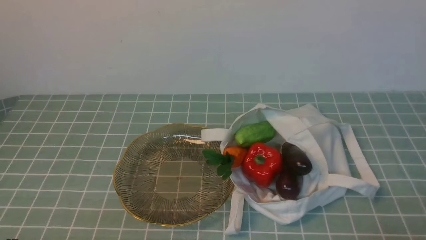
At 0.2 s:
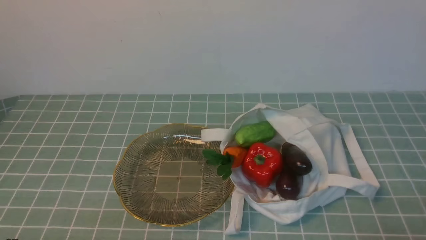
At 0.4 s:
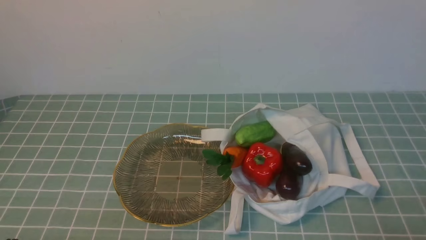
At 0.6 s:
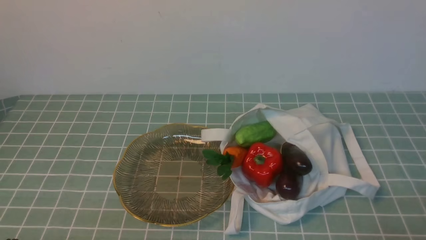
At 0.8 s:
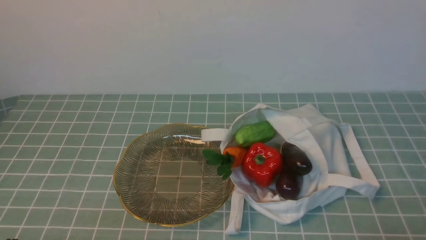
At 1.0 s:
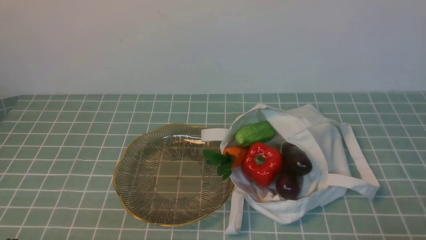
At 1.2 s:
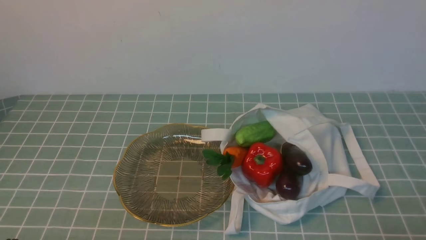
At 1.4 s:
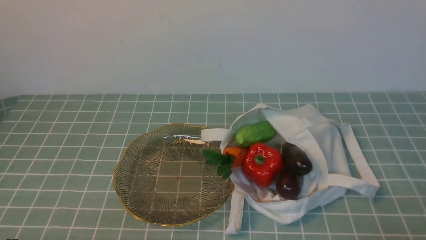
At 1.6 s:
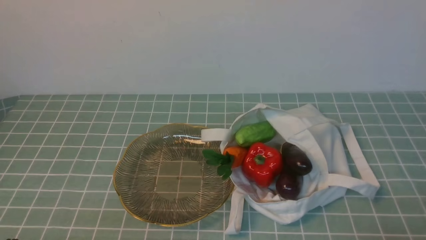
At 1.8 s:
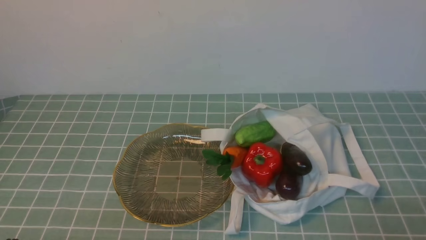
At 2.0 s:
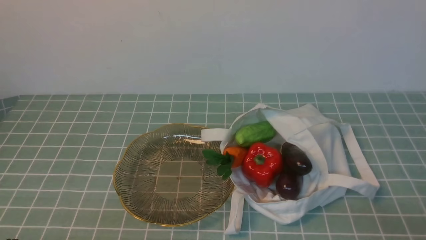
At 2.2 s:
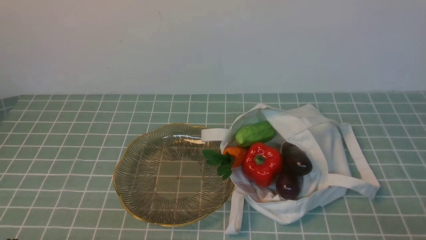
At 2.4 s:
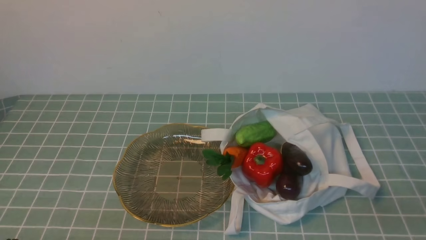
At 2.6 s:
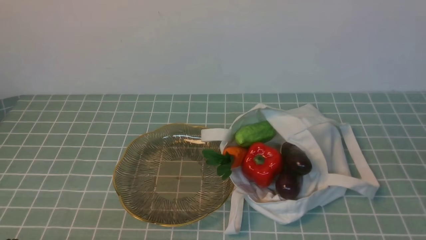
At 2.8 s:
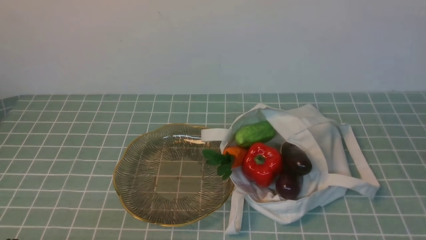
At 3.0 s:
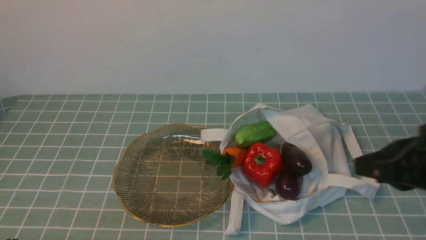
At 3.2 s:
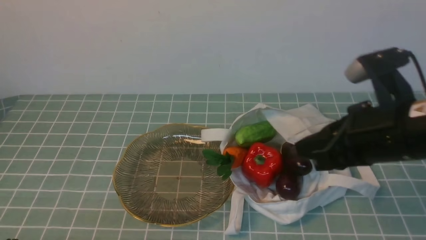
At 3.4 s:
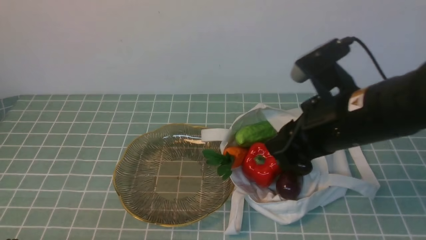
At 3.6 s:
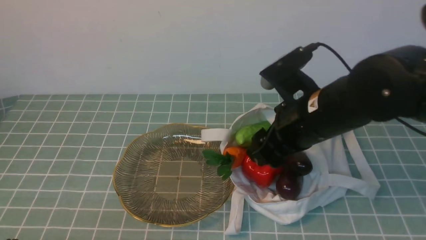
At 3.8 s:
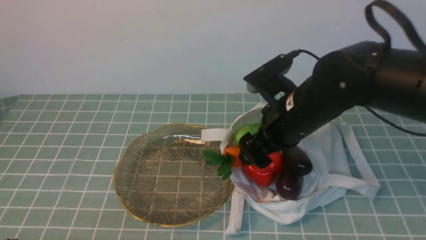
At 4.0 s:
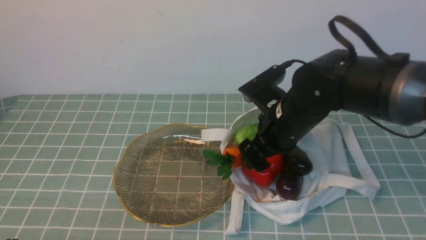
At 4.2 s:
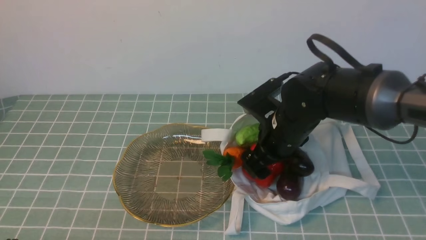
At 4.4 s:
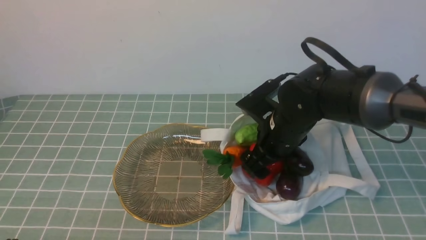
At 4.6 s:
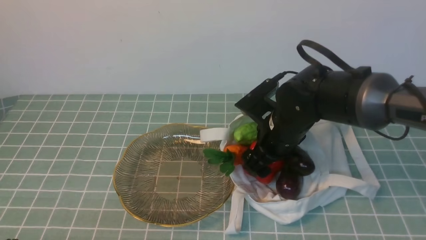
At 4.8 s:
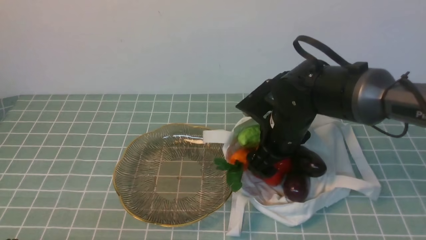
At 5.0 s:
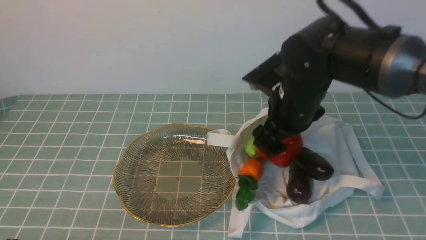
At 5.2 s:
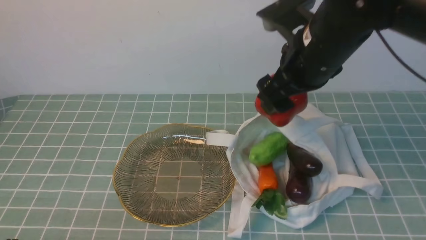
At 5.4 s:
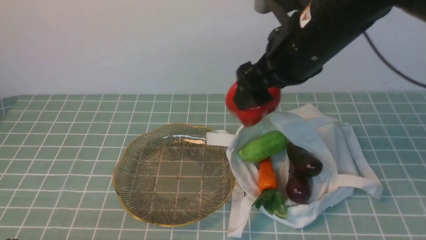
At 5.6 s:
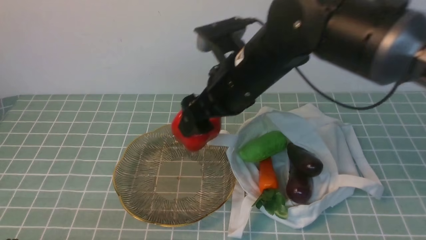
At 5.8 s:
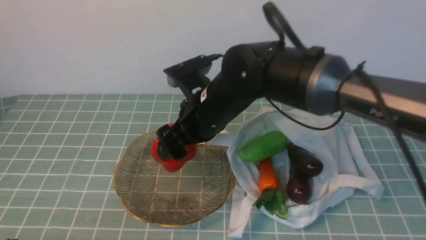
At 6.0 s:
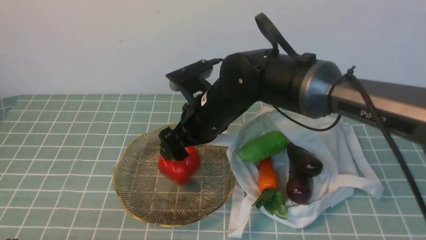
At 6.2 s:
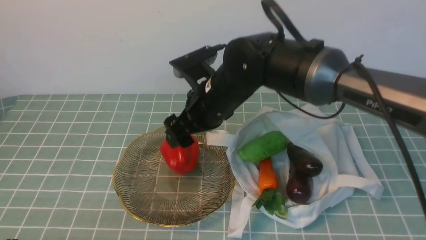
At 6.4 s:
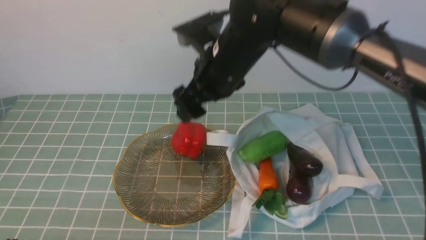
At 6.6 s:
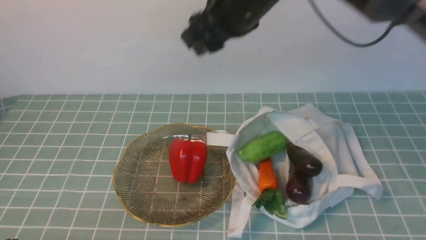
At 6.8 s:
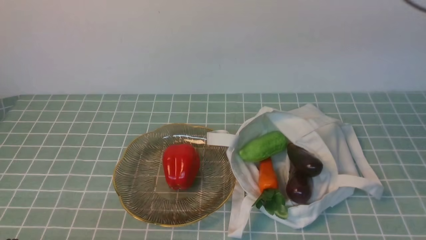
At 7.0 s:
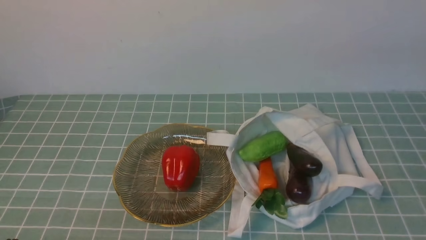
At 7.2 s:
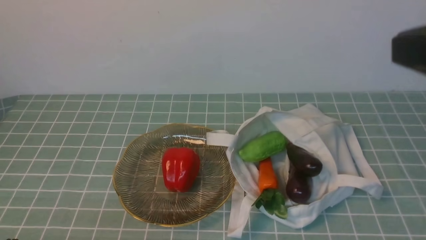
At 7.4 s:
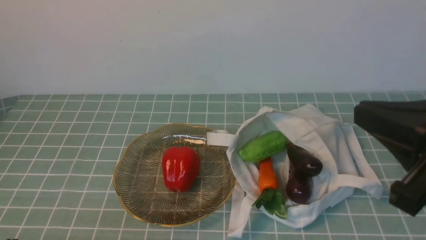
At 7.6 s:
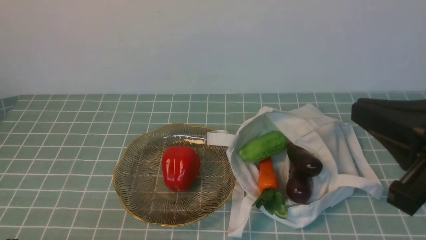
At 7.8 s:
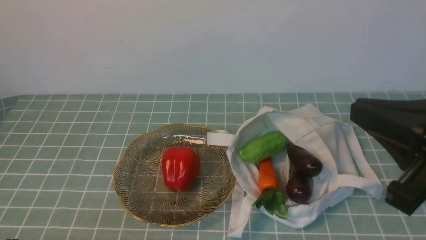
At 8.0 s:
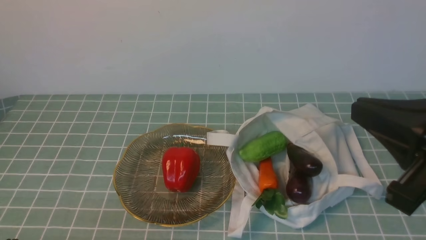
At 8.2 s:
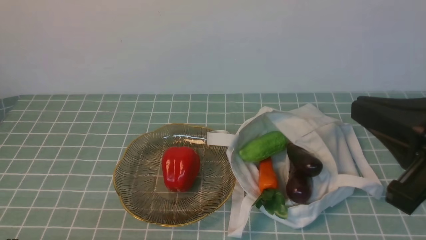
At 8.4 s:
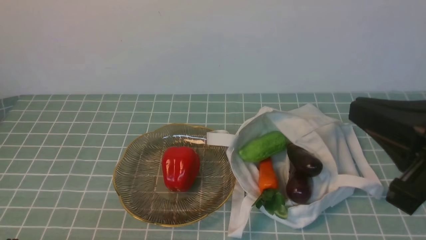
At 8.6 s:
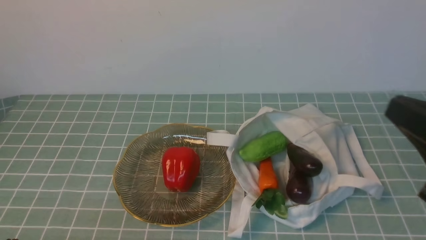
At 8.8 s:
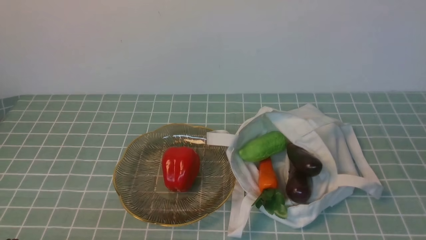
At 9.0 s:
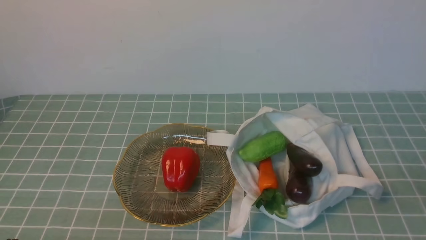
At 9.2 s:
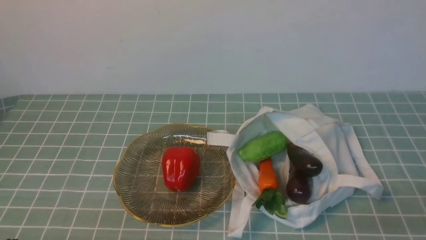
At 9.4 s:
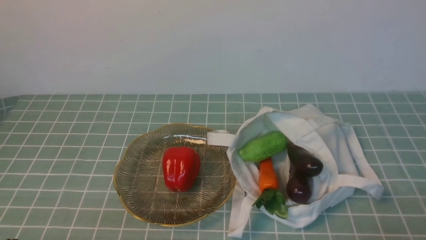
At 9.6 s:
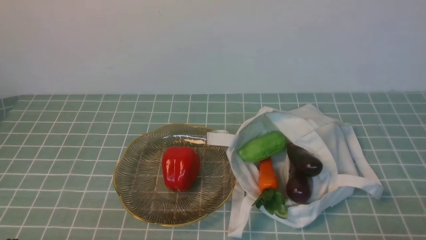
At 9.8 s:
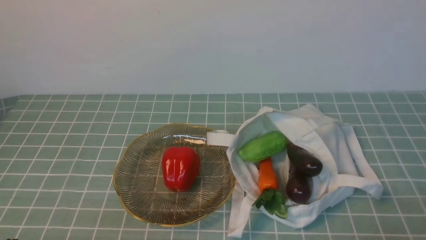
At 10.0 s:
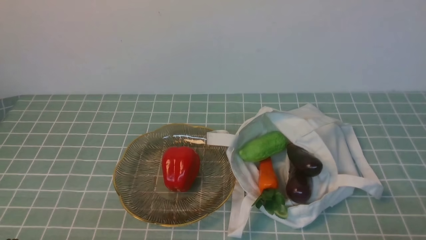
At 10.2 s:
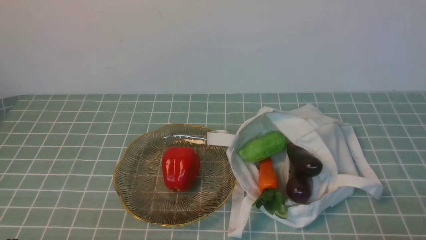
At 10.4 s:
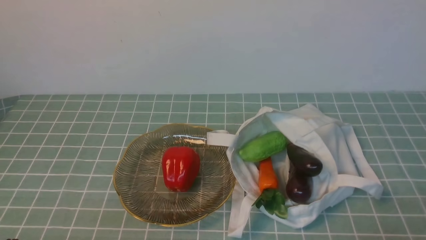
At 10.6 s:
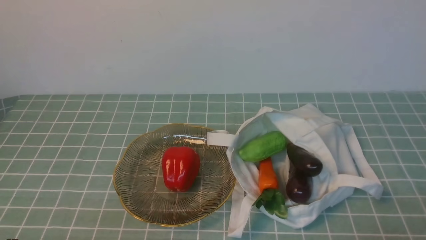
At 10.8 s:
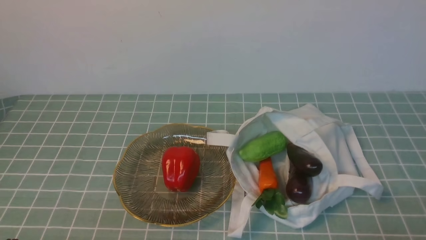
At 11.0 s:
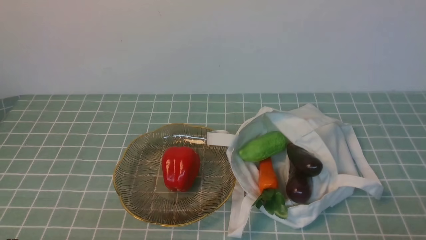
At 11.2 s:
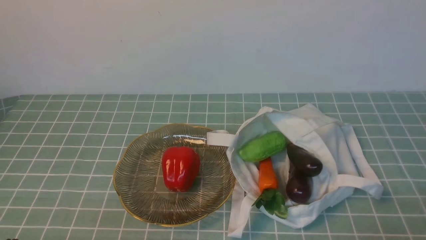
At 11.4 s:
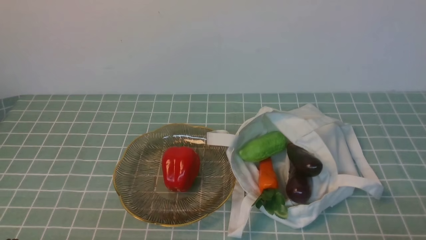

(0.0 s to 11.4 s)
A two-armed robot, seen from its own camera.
Task of the whole recording: take vegetables from cloth bag on blue coffee tablecloth place on plate.
Step, 0.0 s - 4.2 s: Grasp the bell pepper with right gripper.
Step, 4.4 s - 6.4 s: Place the bell pepper on the plate with right gripper.
0.0 s - 1.4 s: The two grippers keep their place.
2.8 s - 4.2 s: The right gripper shifts some 30 cm forward, to the left and downward, and opens up.
4.2 s - 5.6 s: The right gripper is displaced upward and to the left by some 10 cm.
5.6 s - 7.2 s: The right gripper swings up and down, roughly 25 cm each way, with 2 reversals, and closes up.
7.2 s - 8.6 s: The right gripper is displaced downward by about 10 cm.
8.6 s - 10.0 s: The right gripper heads downward, covering about 15 cm.
10.0 s - 11.4 s: The two grippers keep their place.

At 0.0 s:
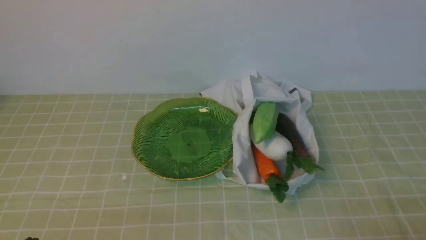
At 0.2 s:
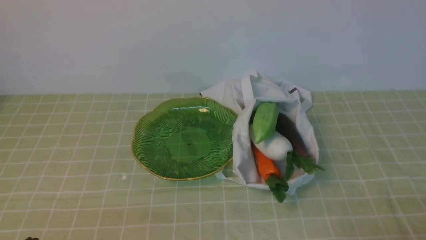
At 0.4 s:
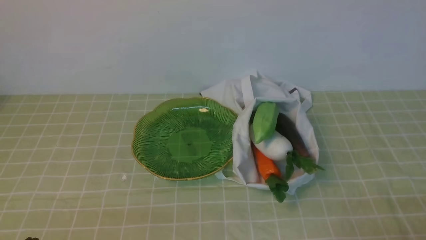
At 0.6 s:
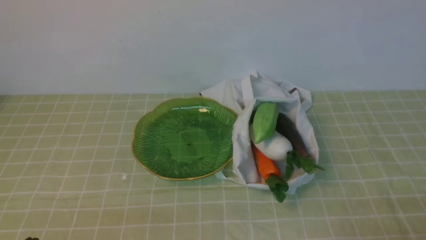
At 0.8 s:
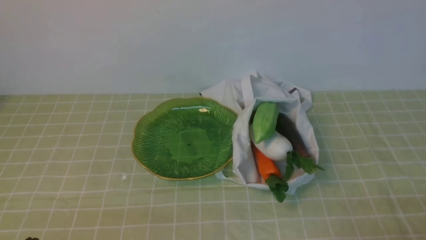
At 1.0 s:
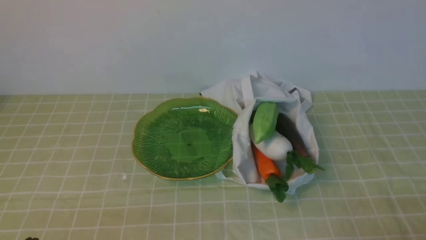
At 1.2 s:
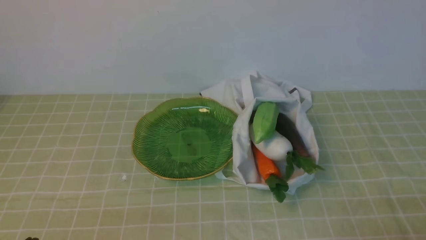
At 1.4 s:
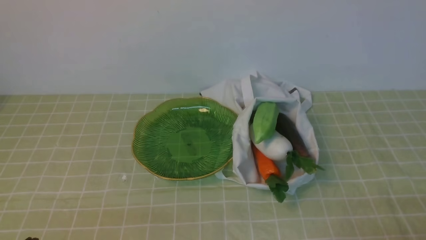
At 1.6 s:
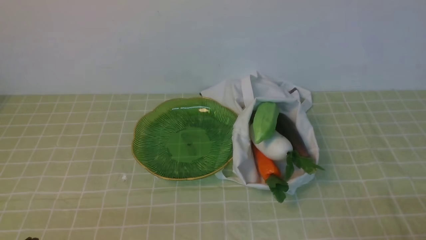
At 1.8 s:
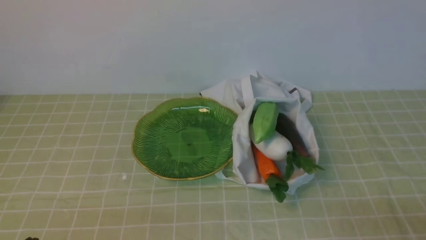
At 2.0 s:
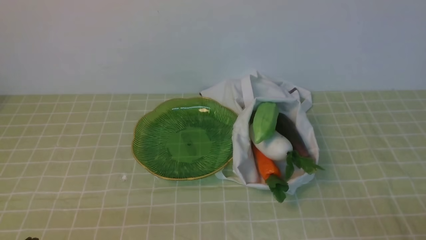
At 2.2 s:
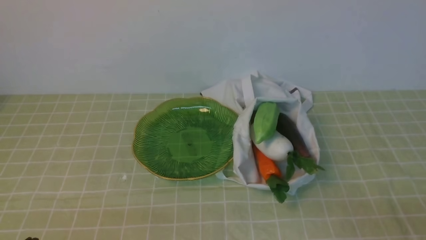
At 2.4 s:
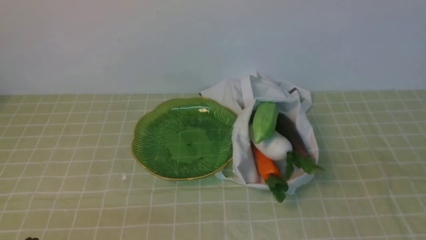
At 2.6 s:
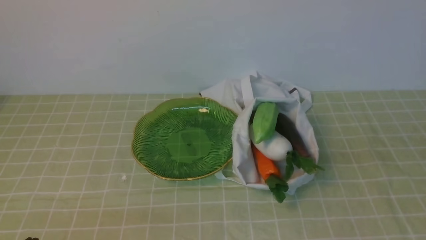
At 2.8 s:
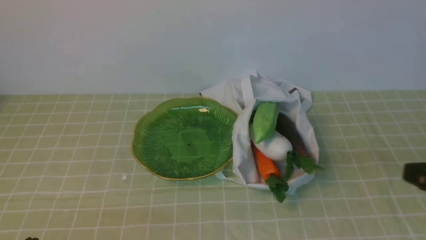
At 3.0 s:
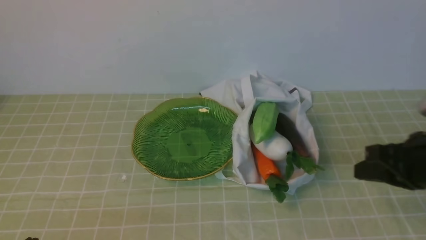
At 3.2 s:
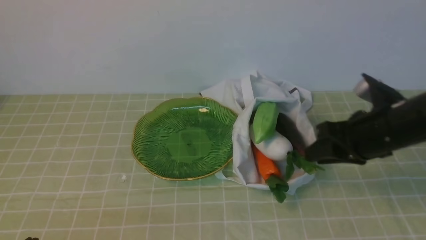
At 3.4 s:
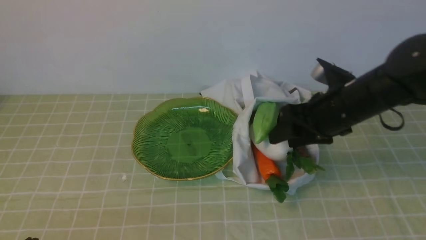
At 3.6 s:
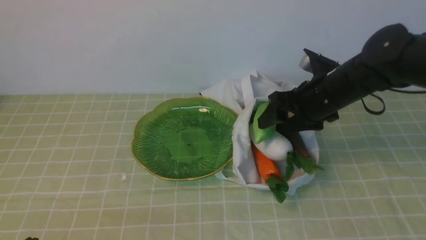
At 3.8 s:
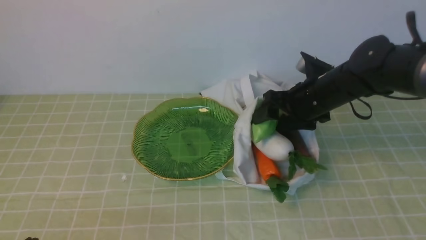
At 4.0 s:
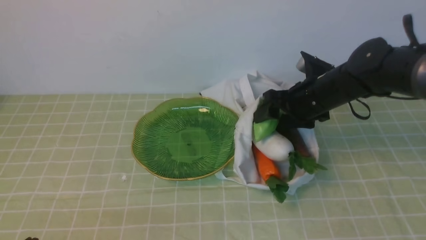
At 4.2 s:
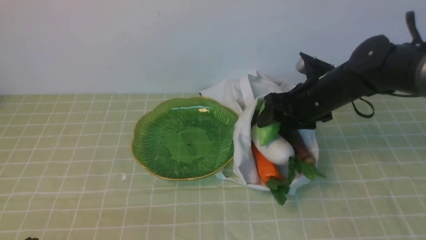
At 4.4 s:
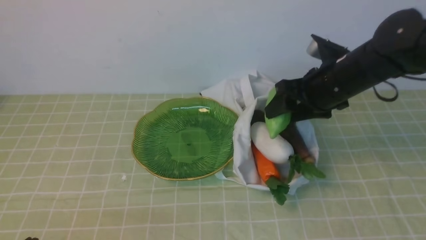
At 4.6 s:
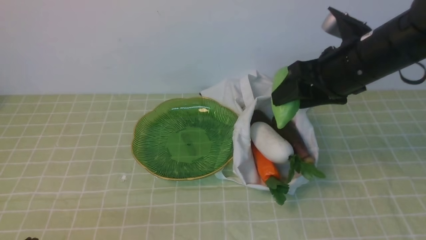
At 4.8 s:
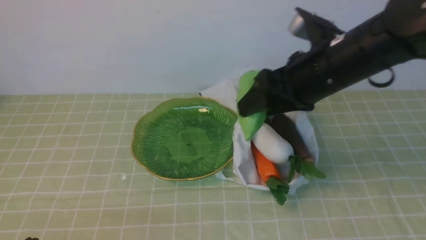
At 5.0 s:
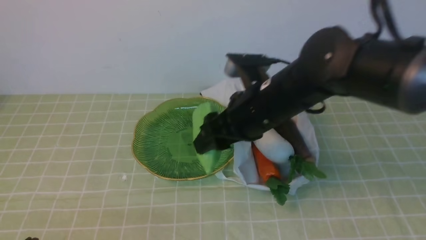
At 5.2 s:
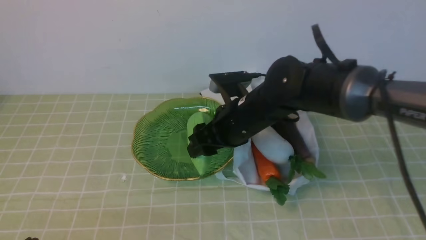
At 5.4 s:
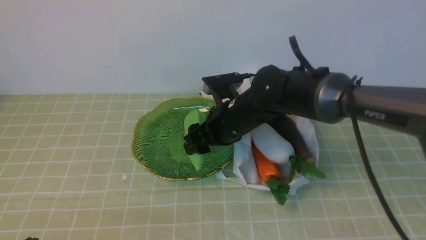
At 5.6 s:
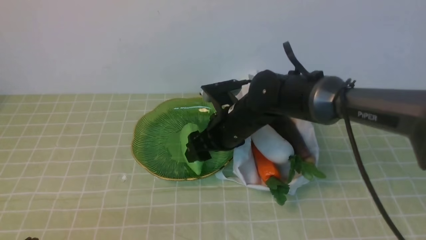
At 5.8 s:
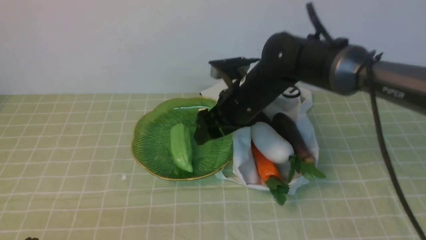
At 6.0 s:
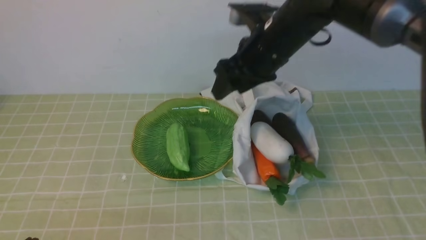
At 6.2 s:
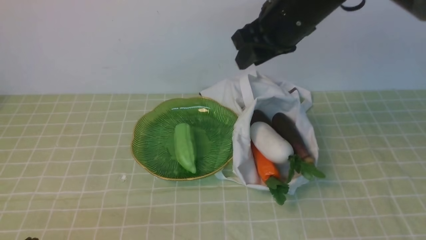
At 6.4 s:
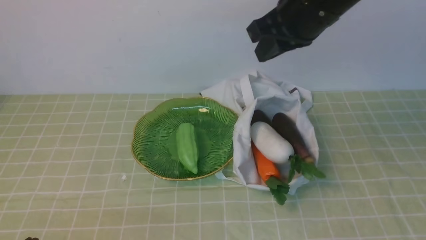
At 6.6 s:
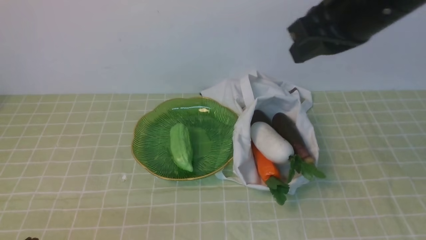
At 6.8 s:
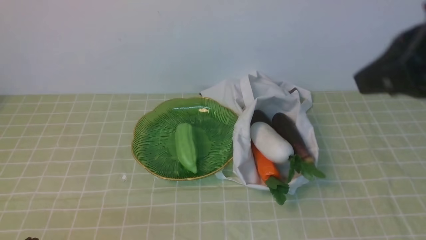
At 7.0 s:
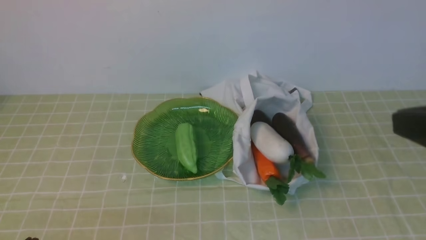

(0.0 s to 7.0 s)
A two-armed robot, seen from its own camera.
Task of the whole recording: take vegetables from bag on green coffee tablecloth place on plate.
Step, 0.0 s - 3.8 s: Grasp the bitter melon with right gripper.
Step, 4.0 s - 5.8 s: Place the bitter melon on the plate with right gripper.
0.0 s - 1.4 s: Neither gripper changes place.
2.8 s - 4.2 s: The right gripper shifts roughly 25 cm forward and to the left, and opens its fingers.
4.2 s - 5.6 s: The right gripper shifts roughly 15 cm to the left.
5.6 s - 7.0 s: The right gripper goes some 35 cm backward, to the right and upward, and closes its fingers.
